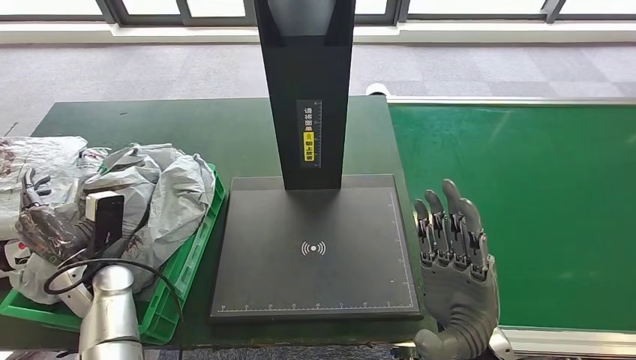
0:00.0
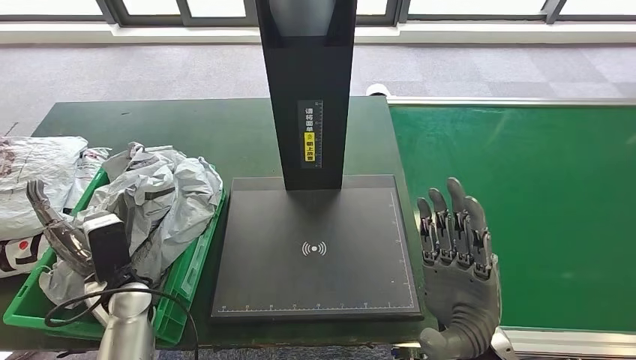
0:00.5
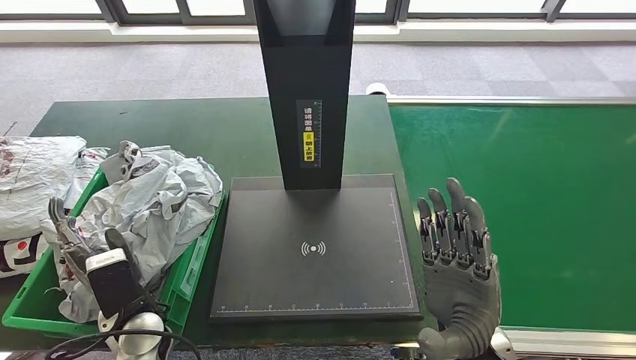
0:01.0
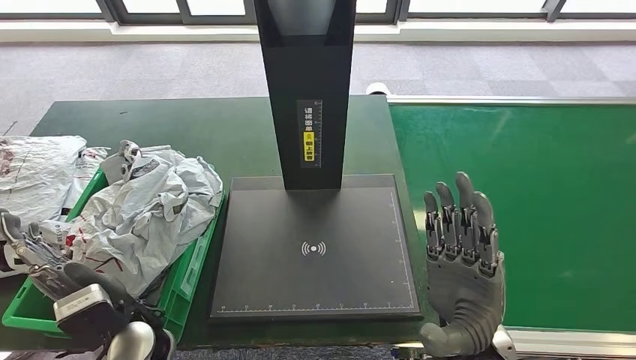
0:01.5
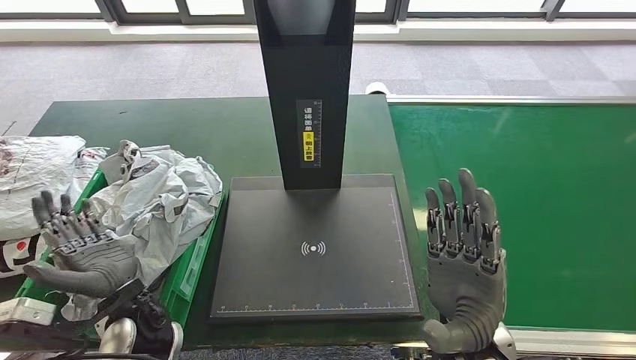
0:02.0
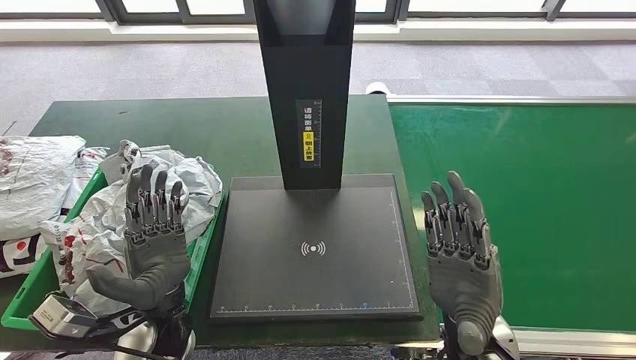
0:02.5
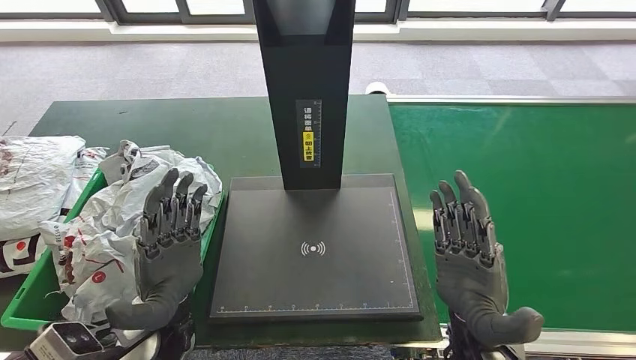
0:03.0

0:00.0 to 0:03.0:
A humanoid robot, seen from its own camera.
Step, 0:00.0 to 0:03.0: Place the parcel into the delivery box.
0:00.0 to 0:01.5: The left hand shifts some 15 cm to the right and backward.
0:01.5 to 0:03.0: The left hand travels to the right by some 5 cm.
